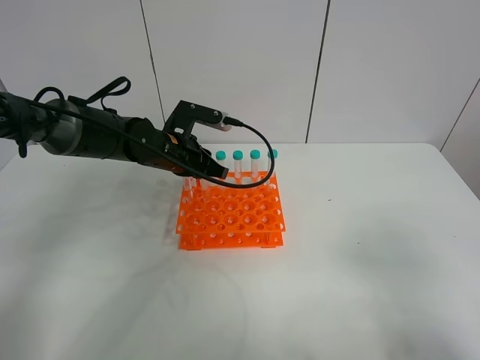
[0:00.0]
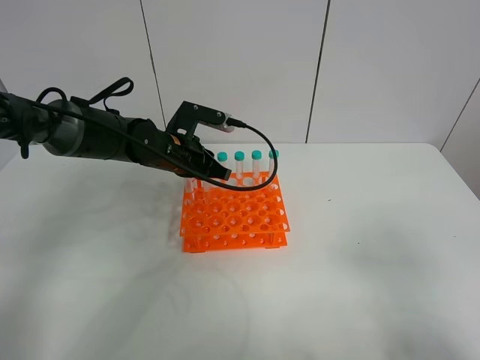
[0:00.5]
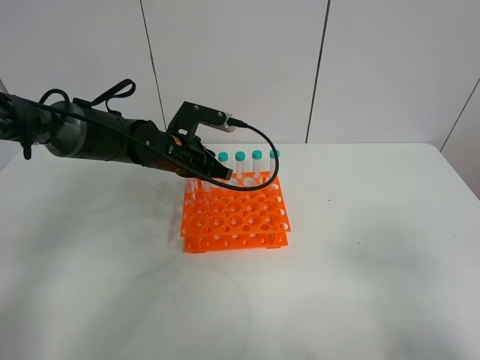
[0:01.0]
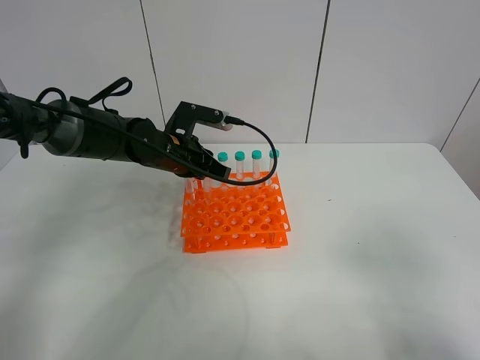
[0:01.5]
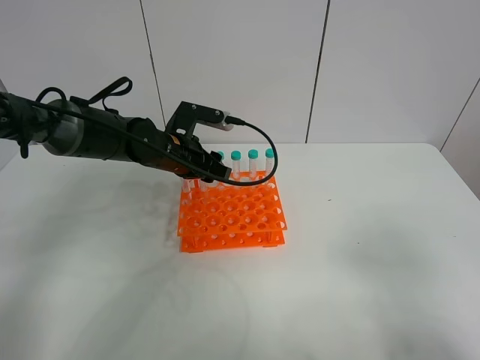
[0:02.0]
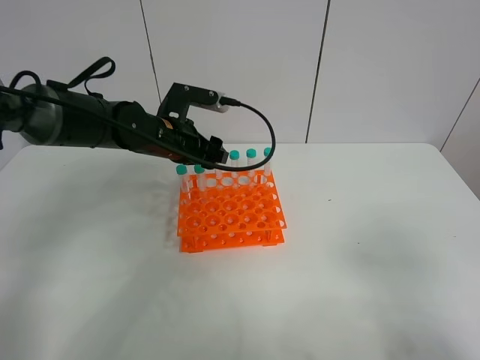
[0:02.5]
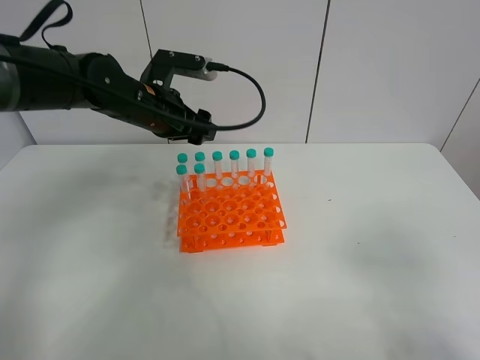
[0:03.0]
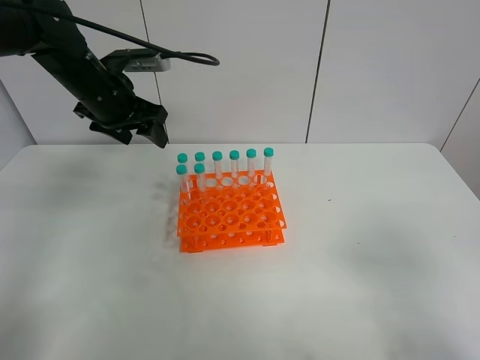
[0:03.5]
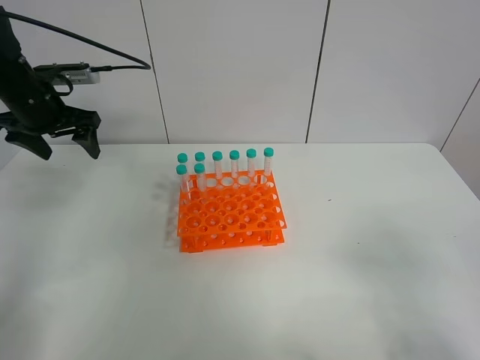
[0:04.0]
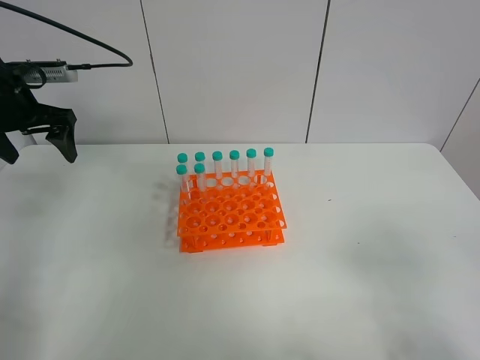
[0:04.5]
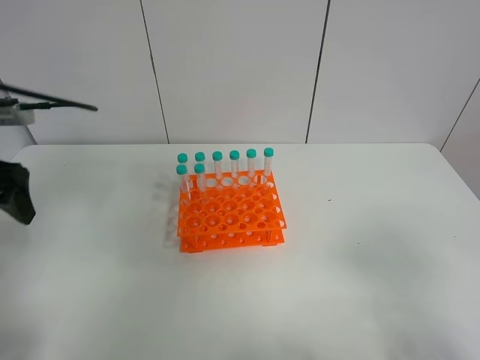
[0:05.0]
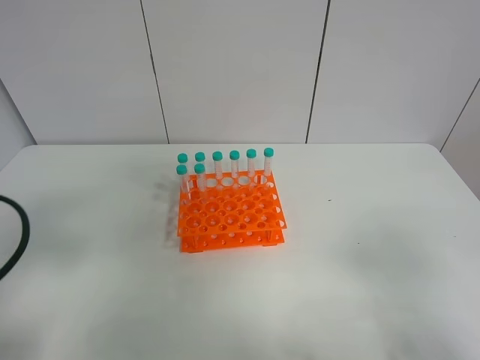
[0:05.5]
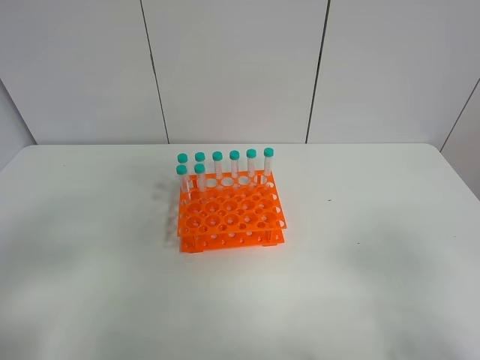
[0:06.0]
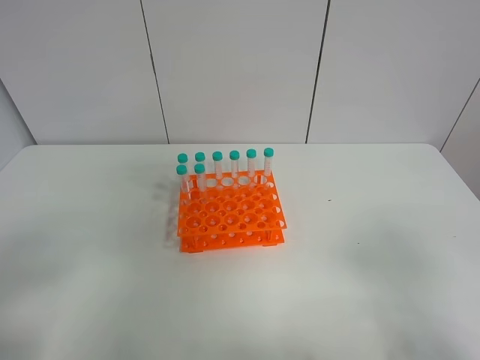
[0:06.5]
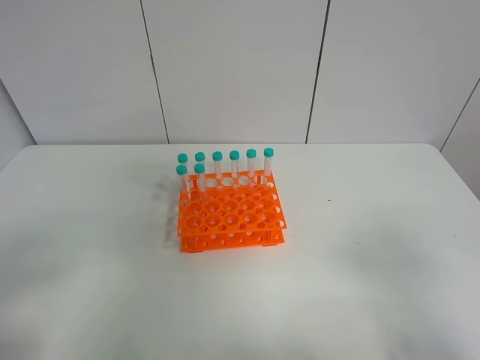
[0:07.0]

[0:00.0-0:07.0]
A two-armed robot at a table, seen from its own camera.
Task of the whole recording: Put the test tube on the table back onto the test tube rack.
Step, 0:00.0 to 0:03.0: Place the test tube on the test tube rack with the left gripper.
0:00.0 to 0:02.0: The left gripper opens.
0:02.0 to 0:03.5: The left gripper heads upward and to the left, covering approximately 15 cm.
0:03.5 to 0:05.0: The left gripper goes roughly 20 cm backward and to the left.
0:05.0 to 0:07.0: The left gripper is displaced backward by approximately 25 cm.
